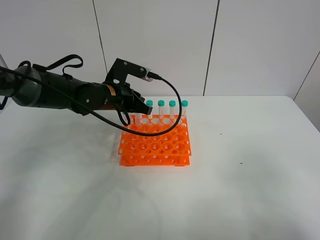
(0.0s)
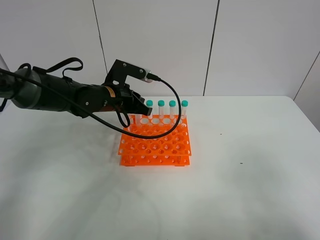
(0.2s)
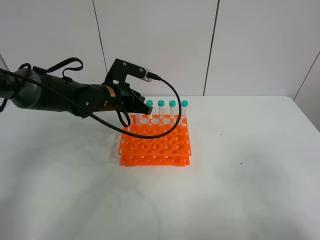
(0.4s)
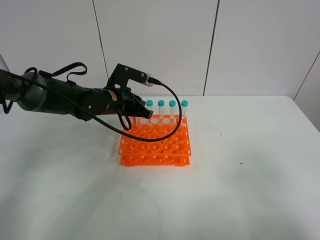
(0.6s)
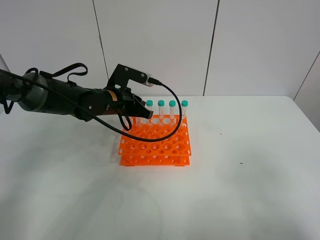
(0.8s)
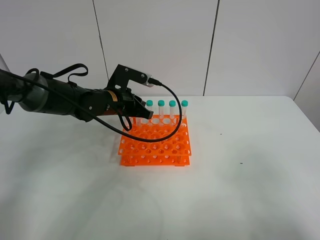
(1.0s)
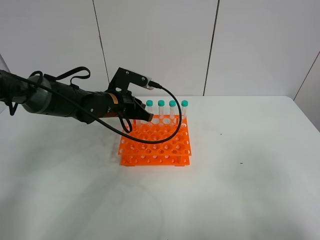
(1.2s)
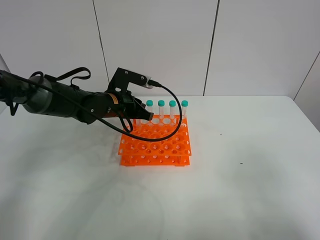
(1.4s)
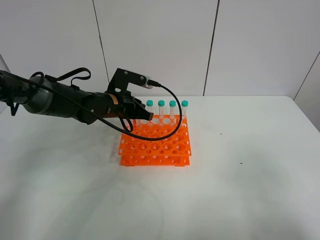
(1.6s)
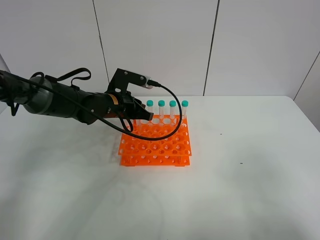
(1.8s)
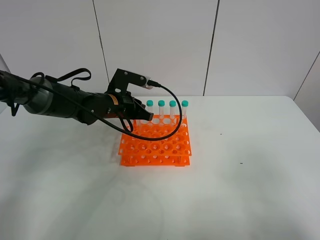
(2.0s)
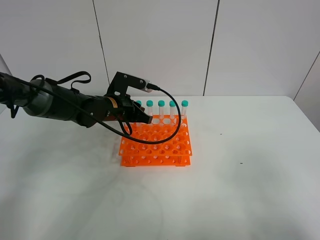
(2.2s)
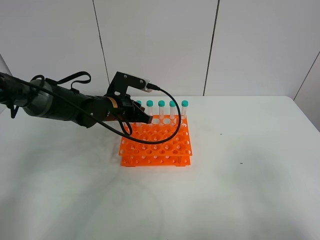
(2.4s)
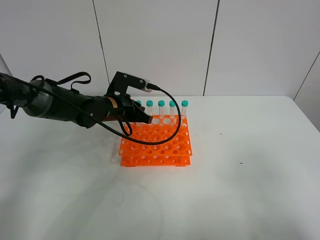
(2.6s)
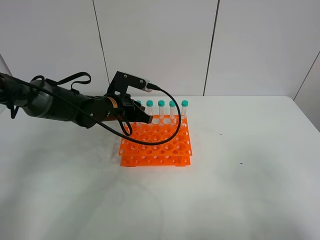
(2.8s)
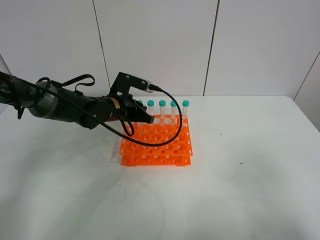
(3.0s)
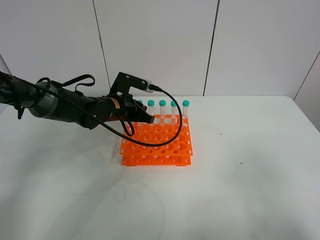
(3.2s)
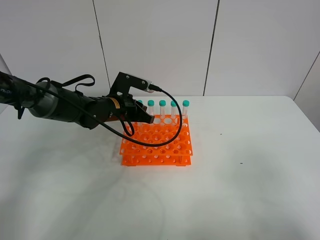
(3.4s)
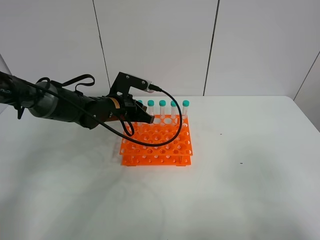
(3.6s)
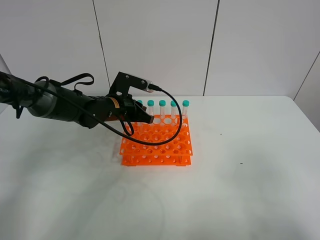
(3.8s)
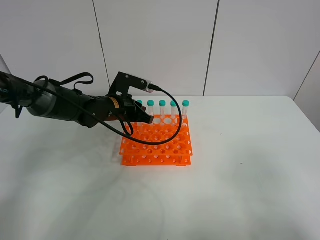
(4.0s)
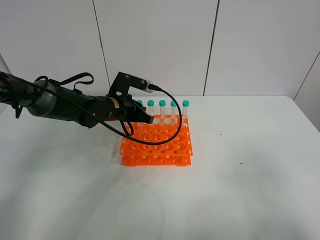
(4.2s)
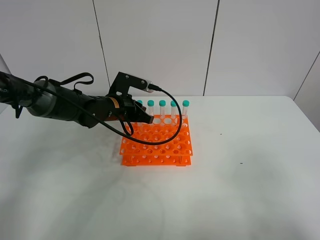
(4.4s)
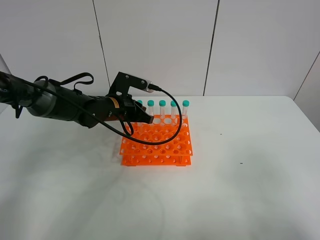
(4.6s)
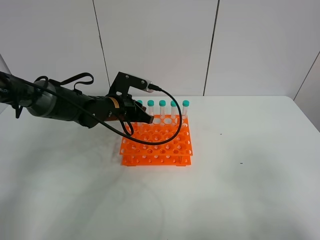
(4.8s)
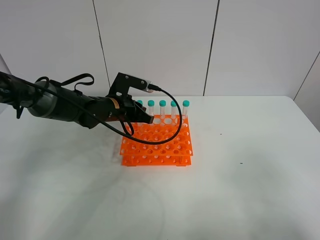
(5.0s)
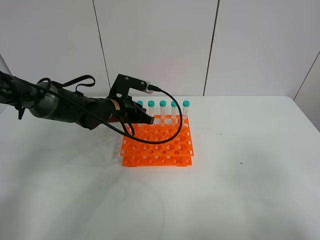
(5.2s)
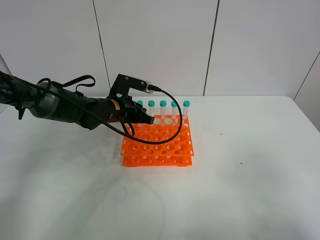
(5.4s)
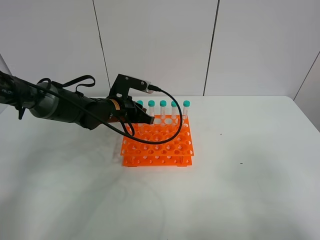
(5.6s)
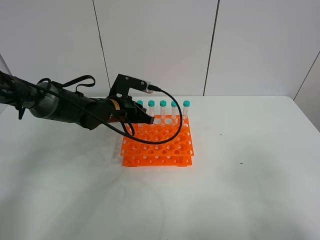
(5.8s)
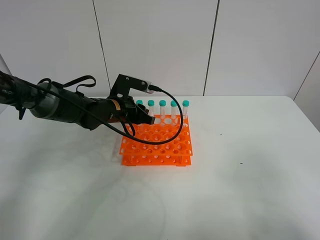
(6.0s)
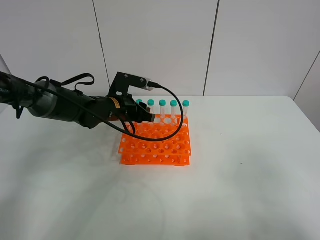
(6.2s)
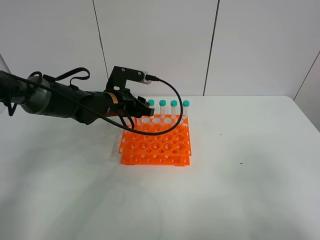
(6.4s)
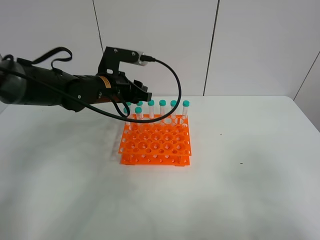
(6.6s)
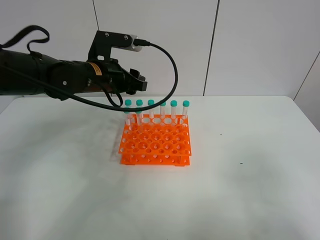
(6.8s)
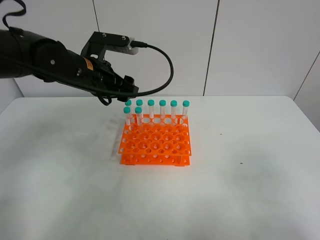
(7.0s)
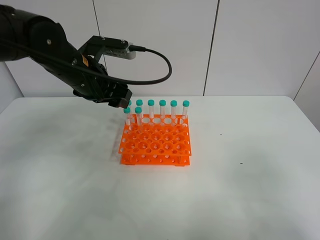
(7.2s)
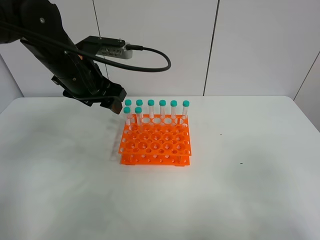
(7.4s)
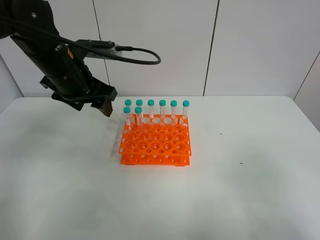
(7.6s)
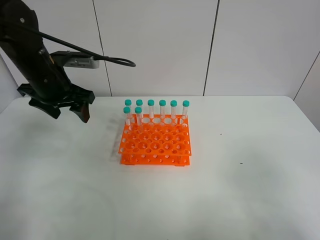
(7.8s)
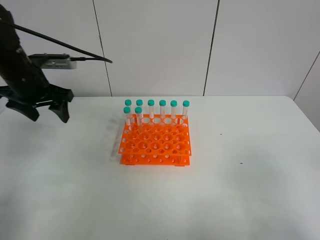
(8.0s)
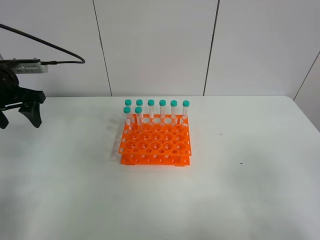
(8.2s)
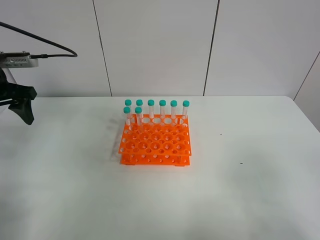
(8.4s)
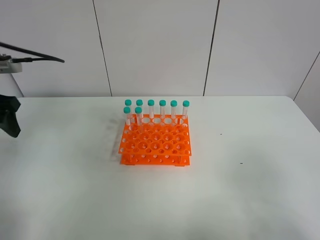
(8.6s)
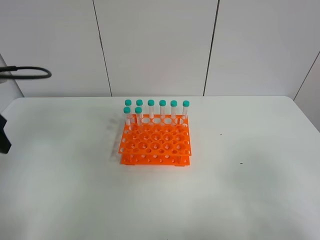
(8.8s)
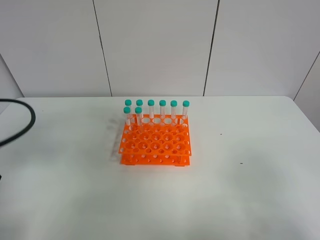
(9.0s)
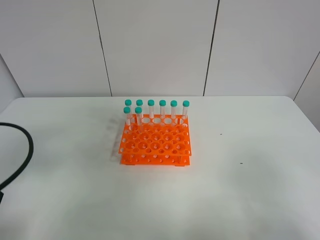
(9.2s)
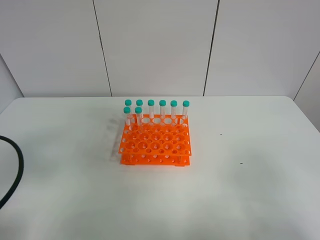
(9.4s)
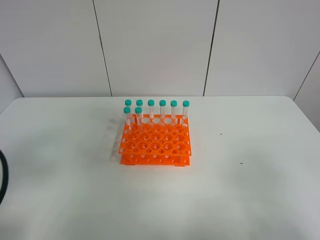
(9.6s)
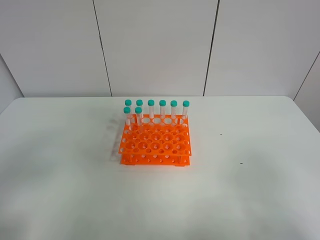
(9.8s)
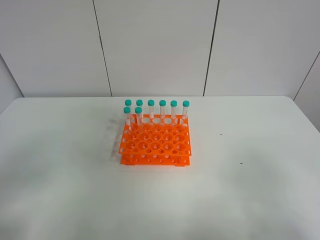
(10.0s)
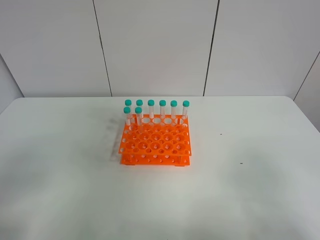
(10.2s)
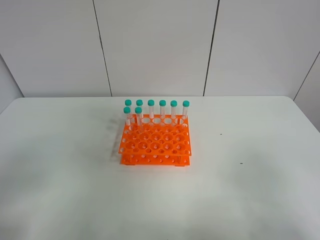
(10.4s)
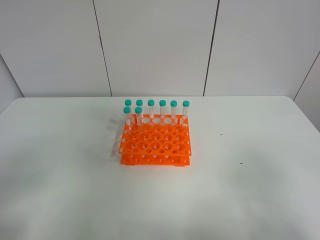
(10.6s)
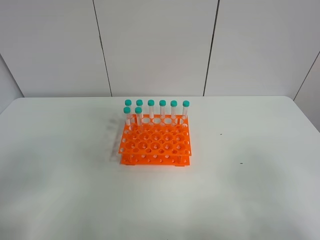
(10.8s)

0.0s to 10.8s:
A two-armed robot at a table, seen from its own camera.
Task of the whole recording: Put the test tube on the table back onto the test tube rack.
Step, 0.0s to 6.2s: Place the test tube on the test tube rack with the left gripper.
0.0s to 1.6s: The grippers move only a little.
1.6s to 4.6s: The two grippers keep their place.
4.6s to 6.2s: The left gripper opens.
6.2s to 7.8s: The left gripper travels to the left and upward by about 15 cm, and opens up.
7.8s to 9.2s: The left gripper heads backward, covering about 25 cm.
9.2s to 10.8s: The left gripper shifts about 10 cm backward.

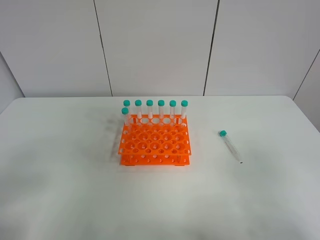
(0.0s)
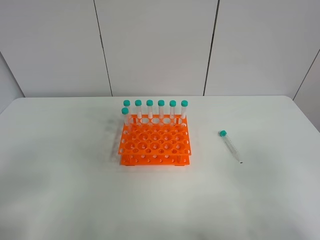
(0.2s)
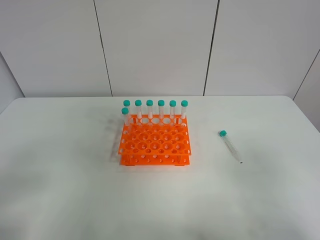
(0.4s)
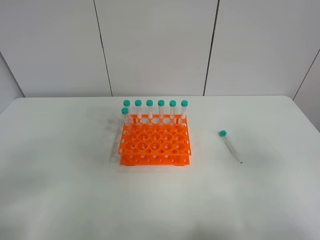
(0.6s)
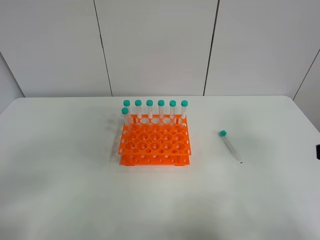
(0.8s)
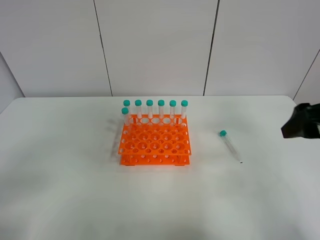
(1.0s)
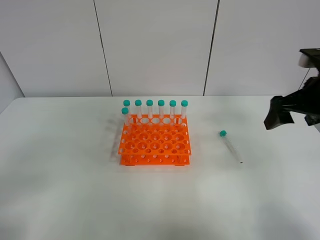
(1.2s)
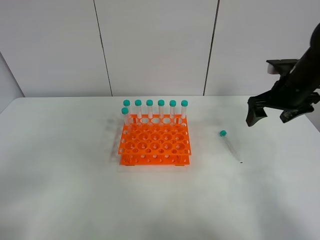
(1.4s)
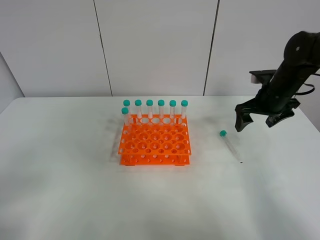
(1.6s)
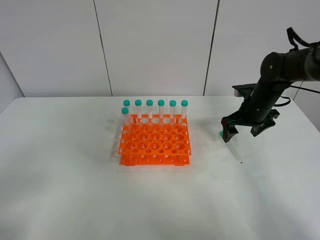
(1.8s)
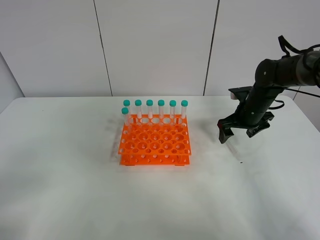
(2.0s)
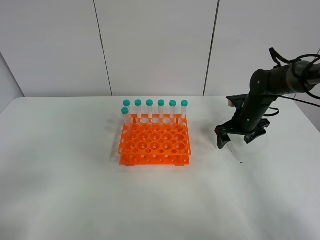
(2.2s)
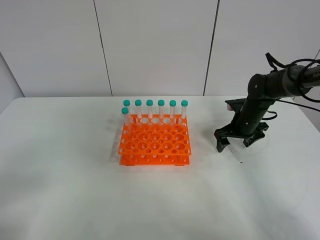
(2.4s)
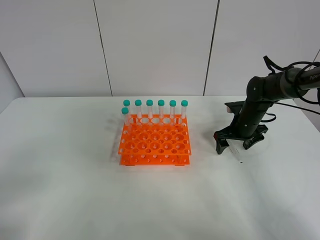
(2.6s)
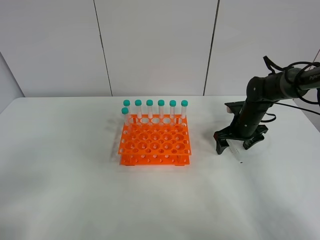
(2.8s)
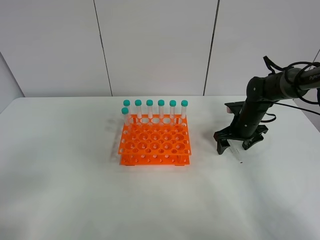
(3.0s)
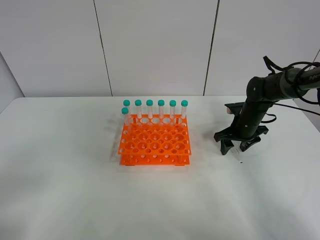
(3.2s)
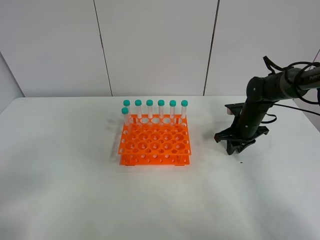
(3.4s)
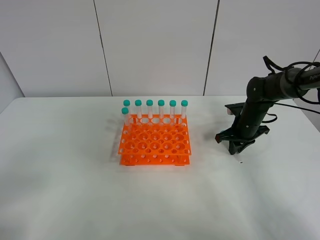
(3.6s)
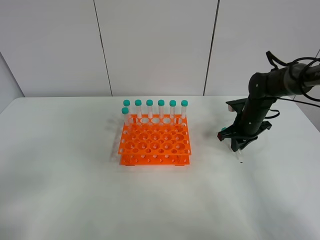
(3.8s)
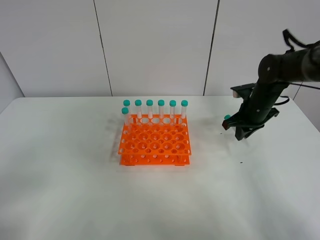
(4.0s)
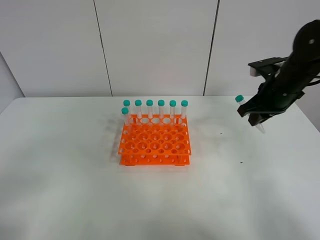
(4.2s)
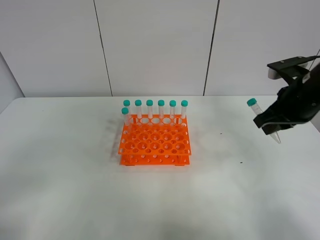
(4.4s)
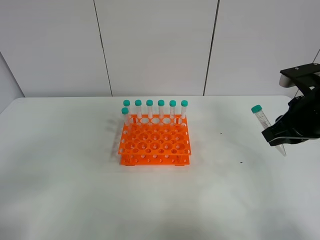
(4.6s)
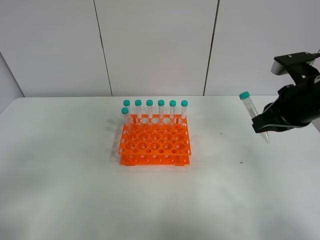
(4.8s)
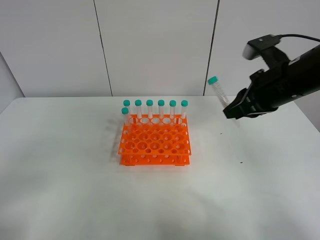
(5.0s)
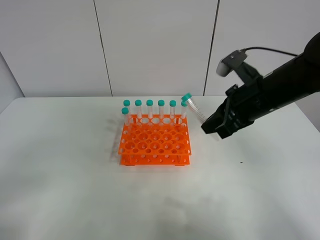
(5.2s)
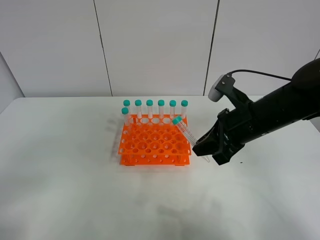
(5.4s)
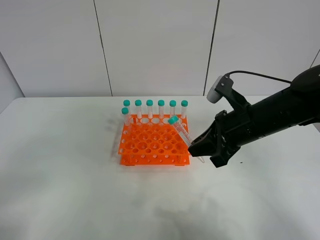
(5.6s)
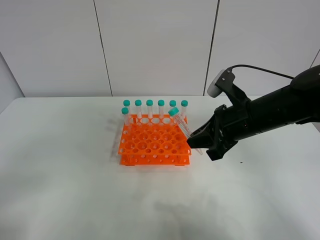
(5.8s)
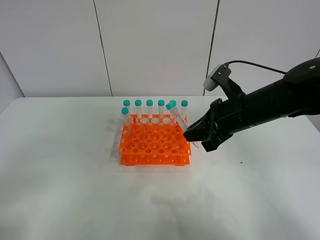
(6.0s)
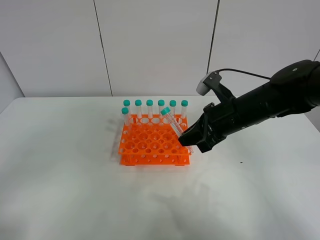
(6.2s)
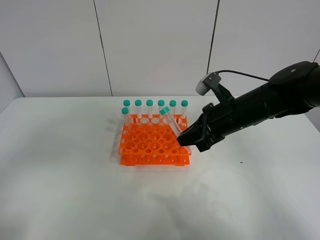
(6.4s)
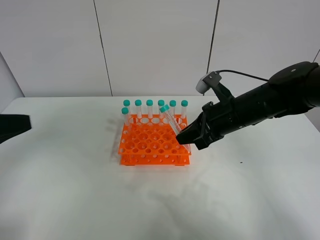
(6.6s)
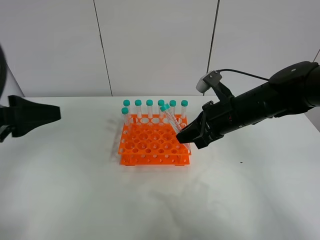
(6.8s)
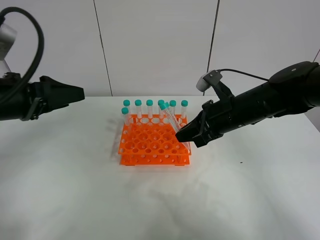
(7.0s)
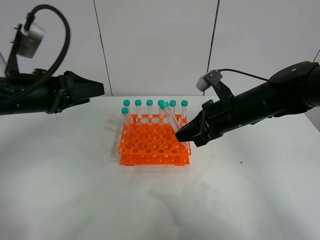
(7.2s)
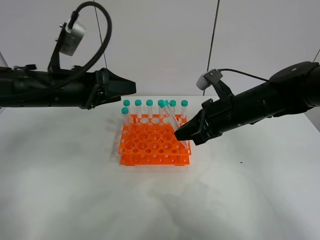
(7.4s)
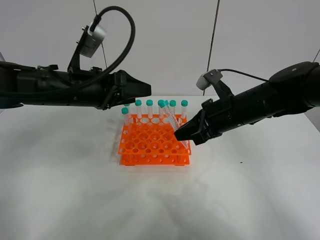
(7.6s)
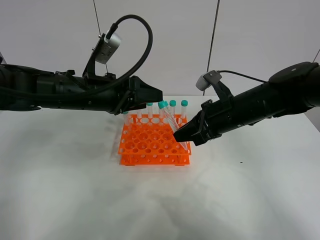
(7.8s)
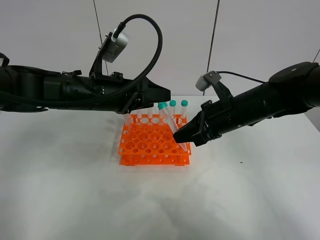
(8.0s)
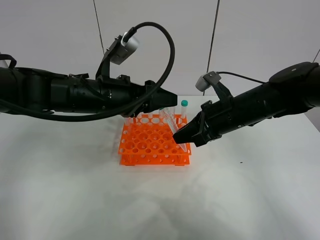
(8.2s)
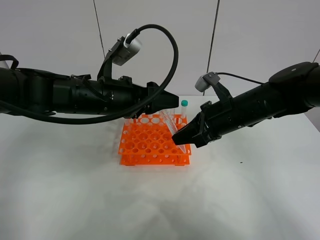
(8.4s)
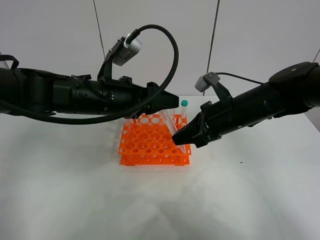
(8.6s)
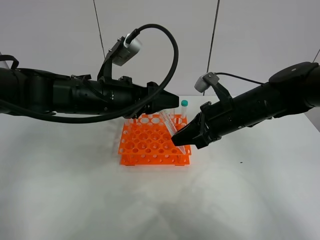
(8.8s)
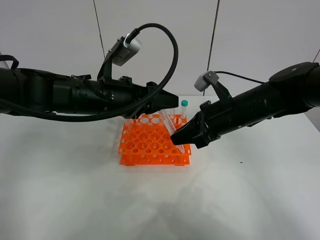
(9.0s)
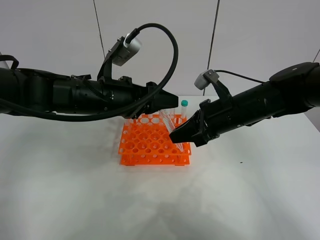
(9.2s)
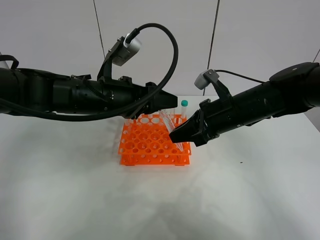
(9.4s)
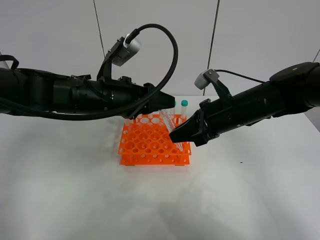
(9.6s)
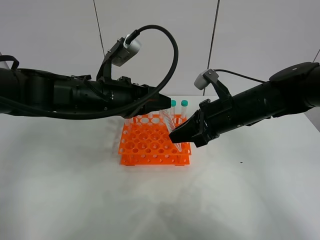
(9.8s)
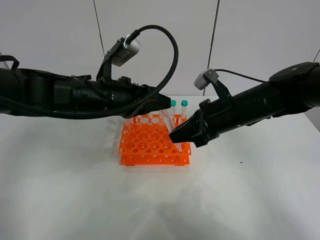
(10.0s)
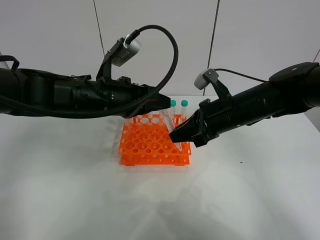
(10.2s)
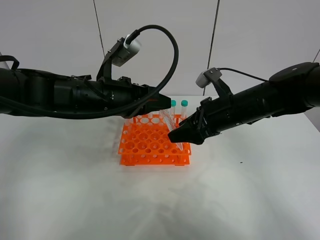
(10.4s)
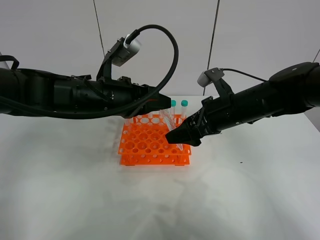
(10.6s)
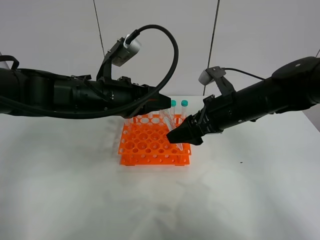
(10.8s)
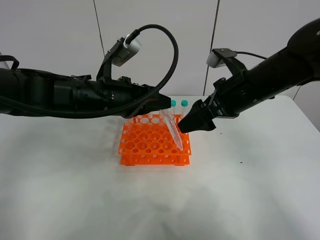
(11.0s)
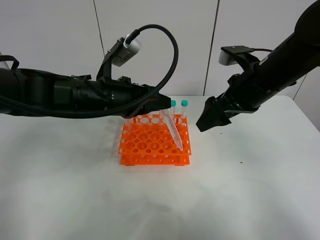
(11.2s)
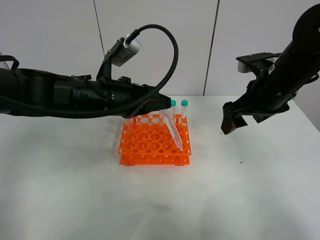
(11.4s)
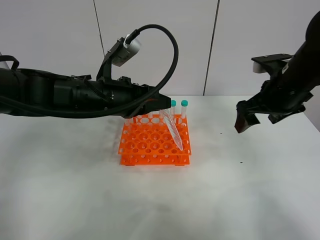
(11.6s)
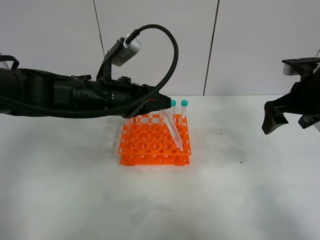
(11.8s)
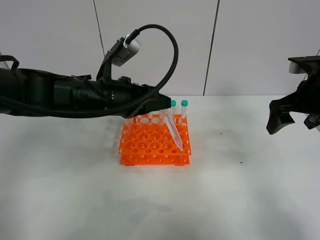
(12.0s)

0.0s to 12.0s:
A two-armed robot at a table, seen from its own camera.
Task of the whole recording: Put the test tube on the table back onto the test tube rack.
Step, 0.0s to 3.6s: Pick up the test tube with the right gripper.
Step, 3.8s to 10.8s: Move the test tube from the right gripper to the left gripper.
0.0s to 1.6s: The right gripper travels forward by about 40 cm.
1.6s to 3.0s: The right gripper heads downward, covering roughly 10 cm.
3.0s to 4.4s: The right gripper goes approximately 20 cm upward and backward, and closes its fingers.
4.4s to 6.0s: The right gripper shifts some 10 cm to the left.
6.0s to 7.6s: The left gripper goes roughly 35 cm forward and to the right.
7.6s to 9.0s: The left gripper changes place by some 5 cm.
9.0s to 10.4s: The left gripper closes its fingers. Meanwhile the right gripper opens.
10.4s to 12.0s: The right gripper heads to the right and upward, covering about 15 cm.
